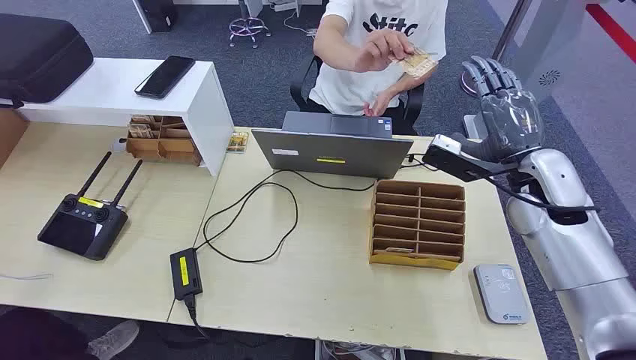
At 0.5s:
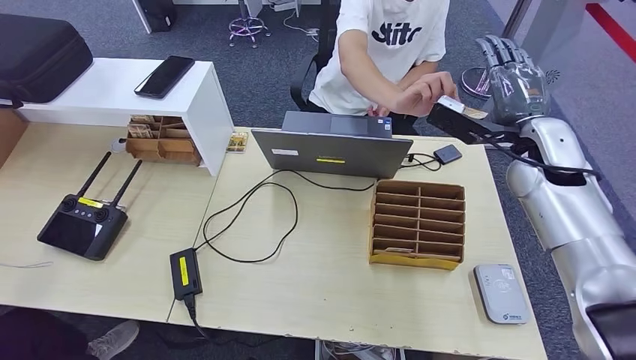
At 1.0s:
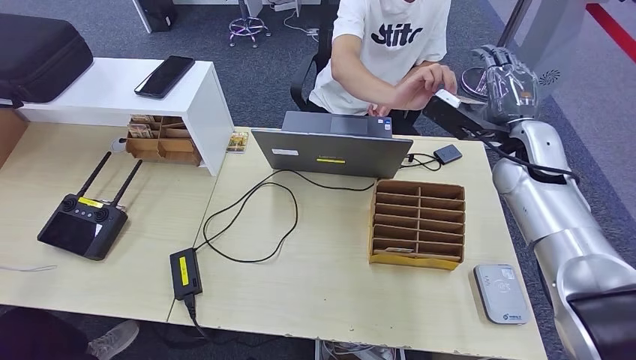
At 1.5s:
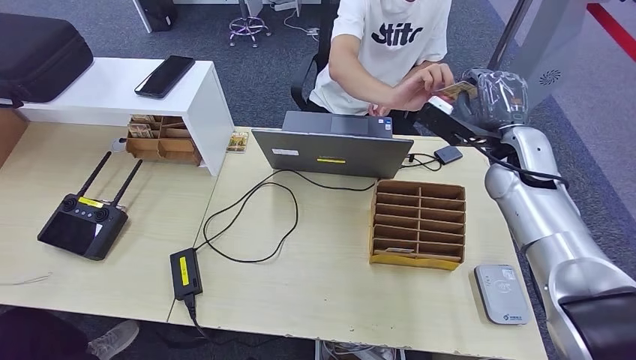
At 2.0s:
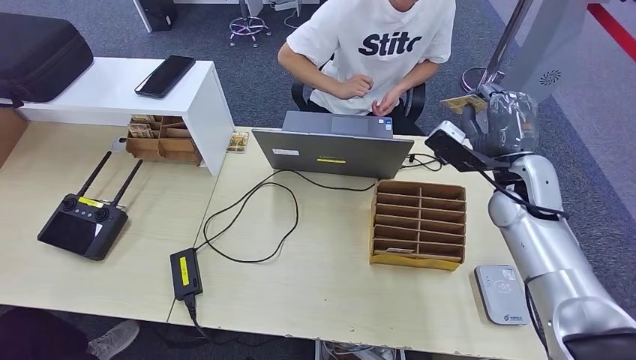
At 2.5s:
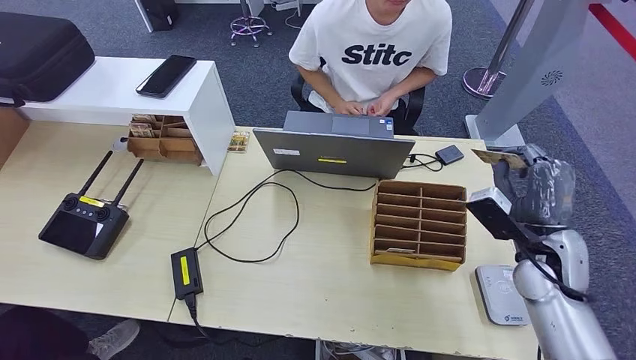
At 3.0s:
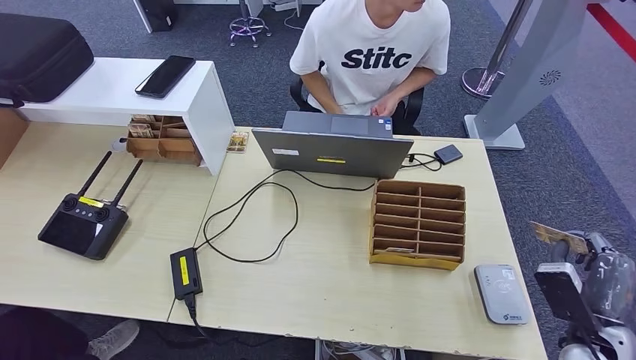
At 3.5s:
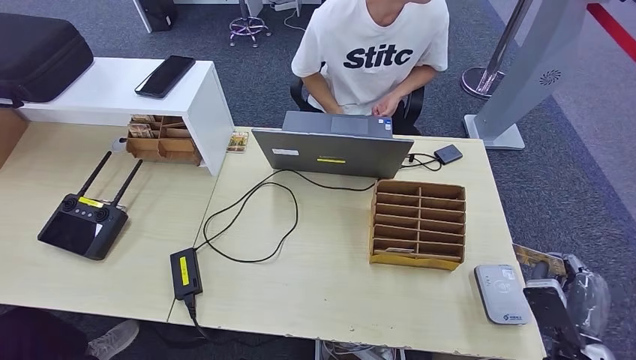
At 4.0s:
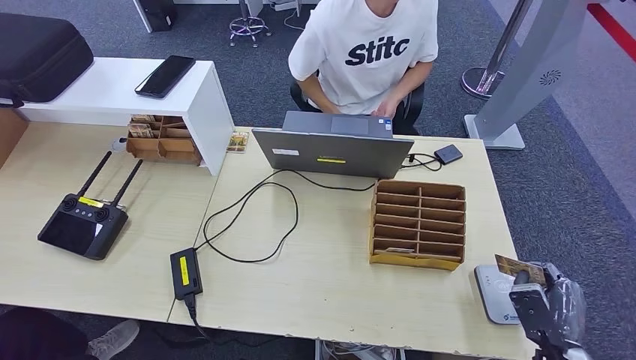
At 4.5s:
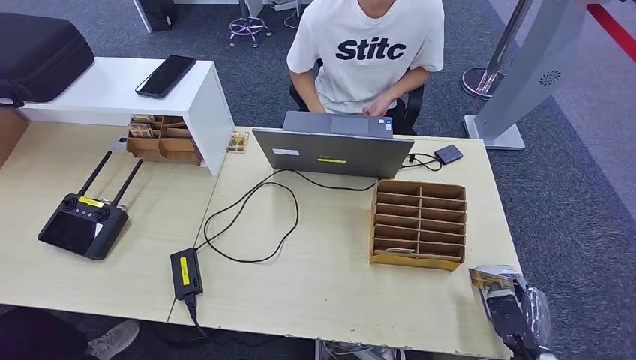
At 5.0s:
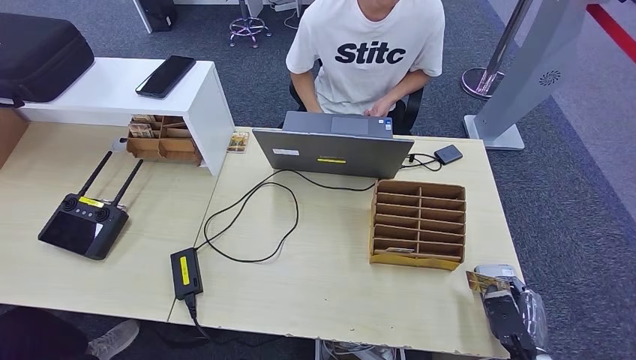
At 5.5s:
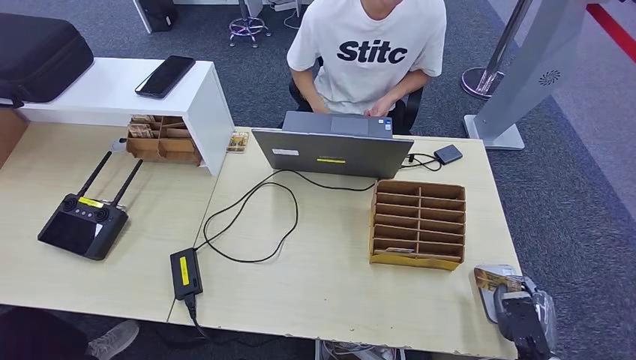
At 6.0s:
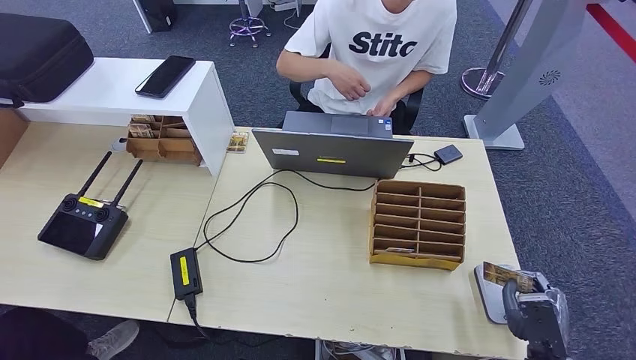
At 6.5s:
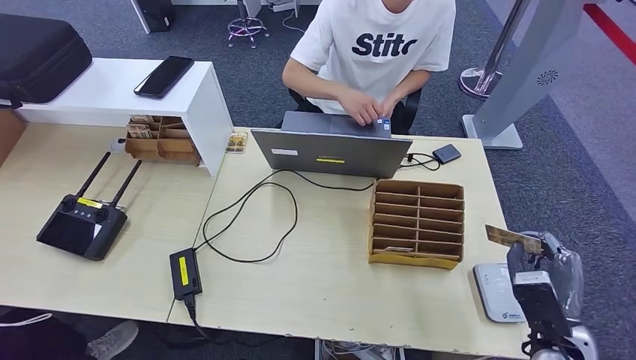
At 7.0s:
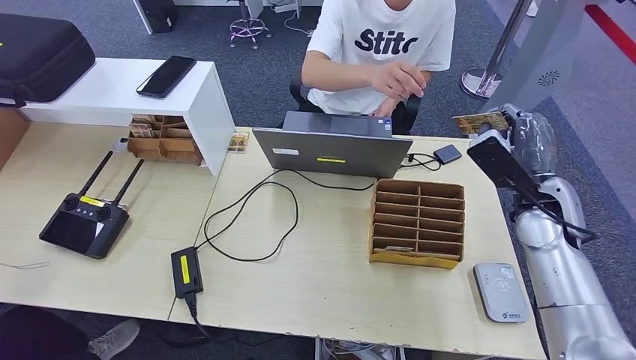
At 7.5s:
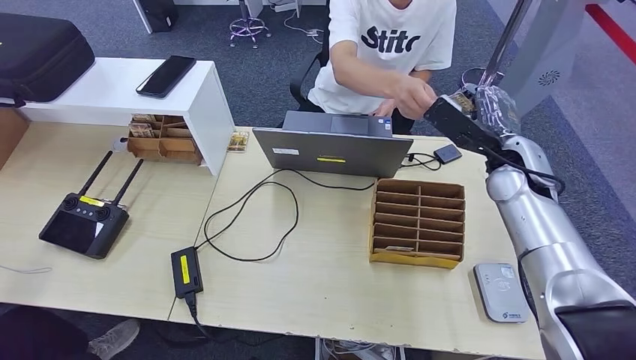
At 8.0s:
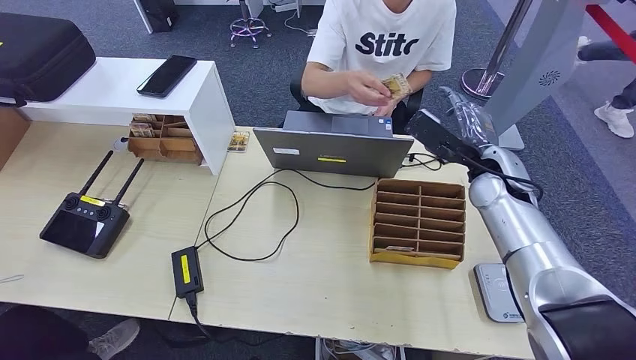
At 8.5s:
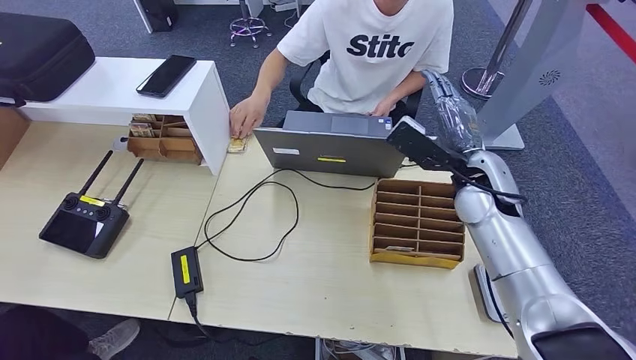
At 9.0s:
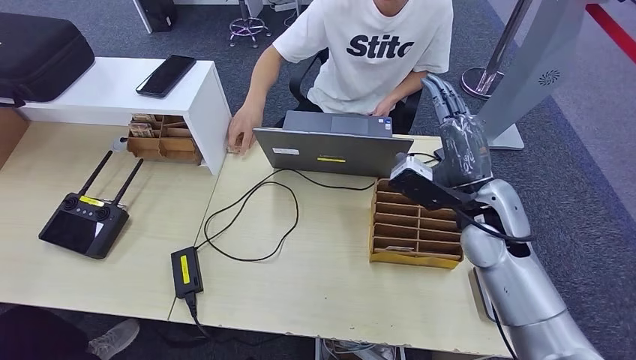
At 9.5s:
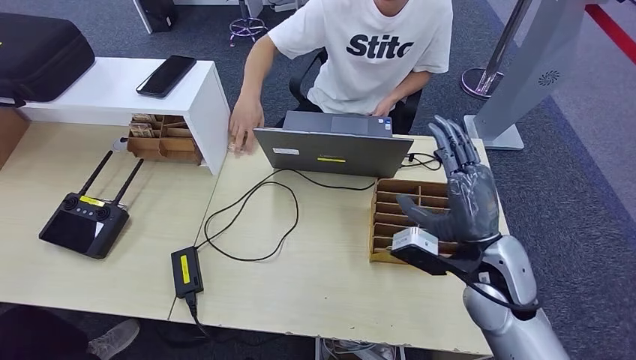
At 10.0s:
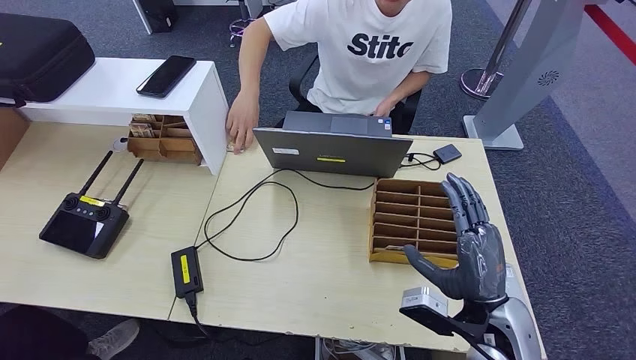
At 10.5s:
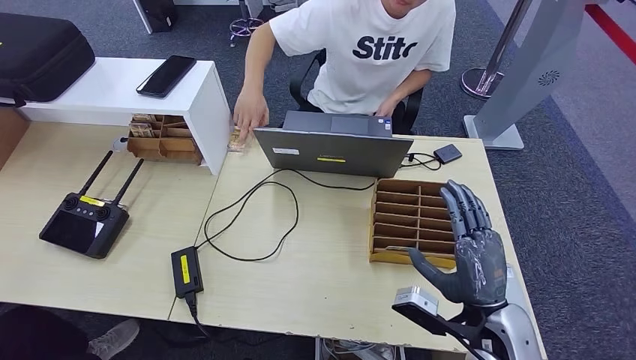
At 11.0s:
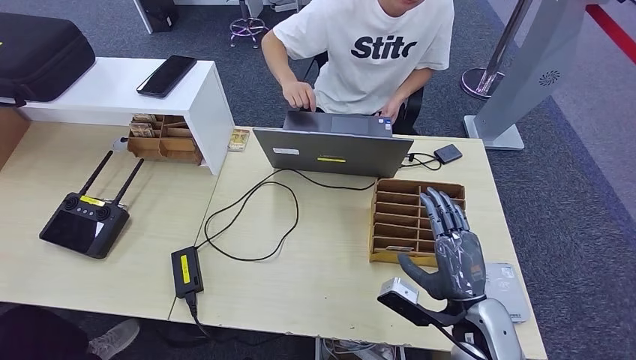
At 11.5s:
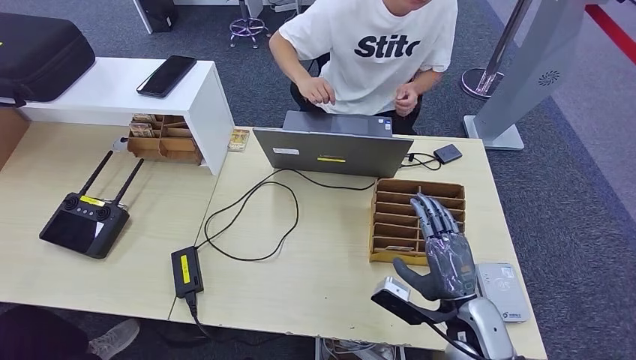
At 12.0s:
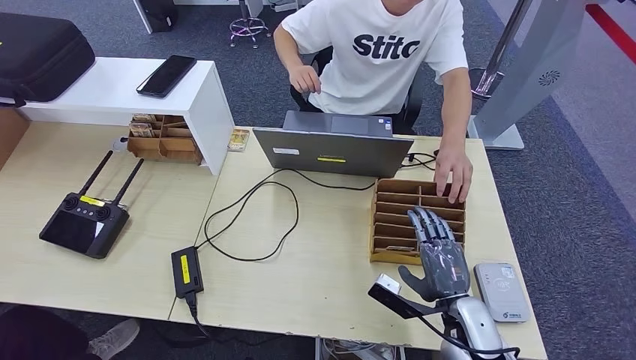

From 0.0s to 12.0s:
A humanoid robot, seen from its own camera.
Step, from 0.0s to 2.5s: Take the ID card from the person's hand.
Step, from 3.0s to 6.5s: Place the ID card on the card reader.
Step, from 7.0s to 9.5s: Hand the ID card to the person.
From 2.0s to 4.0s: The right hand heads backward and downward, covering roughly 30 cm.
From 4.0s to 6.0s: There are only small adjustments of the hands.
From 6.0s to 8.0s: The right hand is displaced forward and upward by some 35 cm.
From 8.0s to 10.0s: The right hand goes some 20 cm backward.
From 10.0s to 12.0s: The right hand shifts roughly 10 cm downward.

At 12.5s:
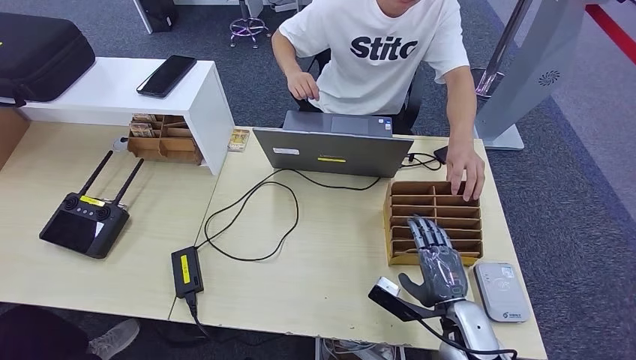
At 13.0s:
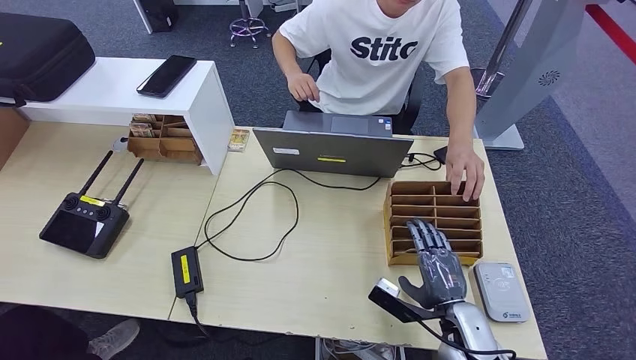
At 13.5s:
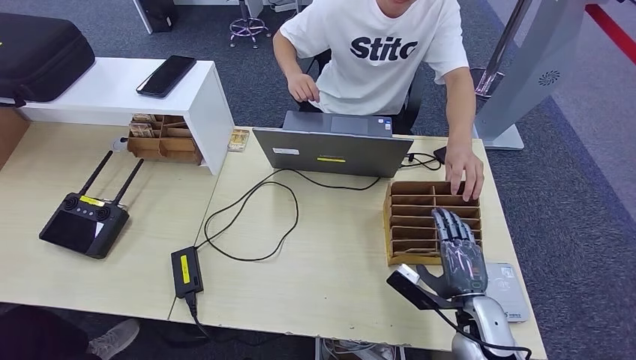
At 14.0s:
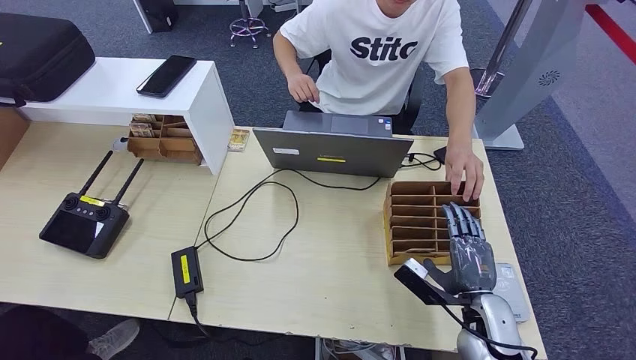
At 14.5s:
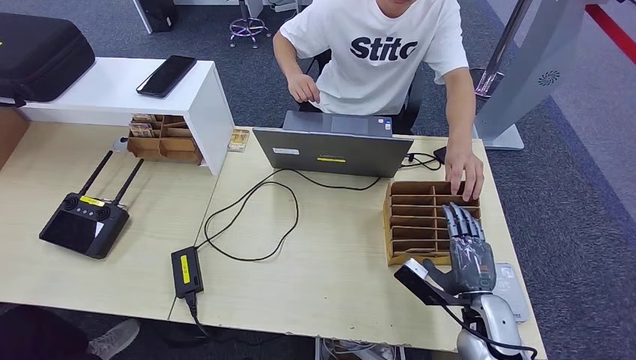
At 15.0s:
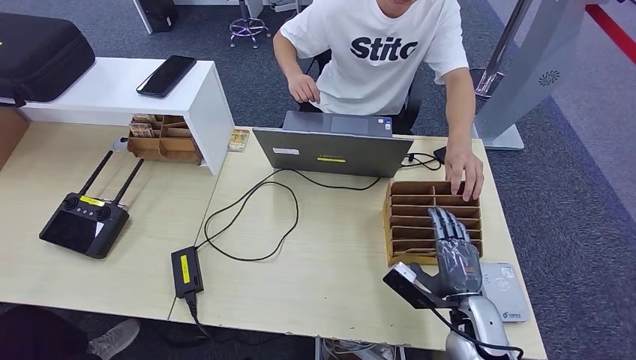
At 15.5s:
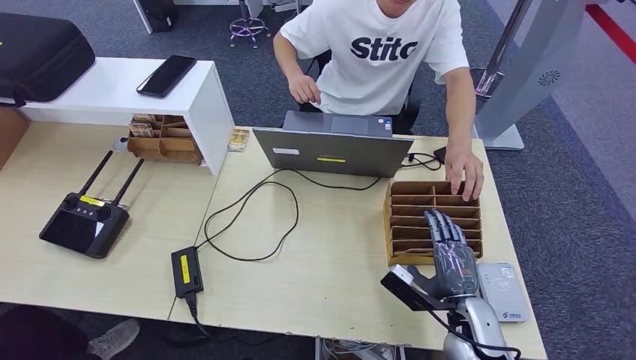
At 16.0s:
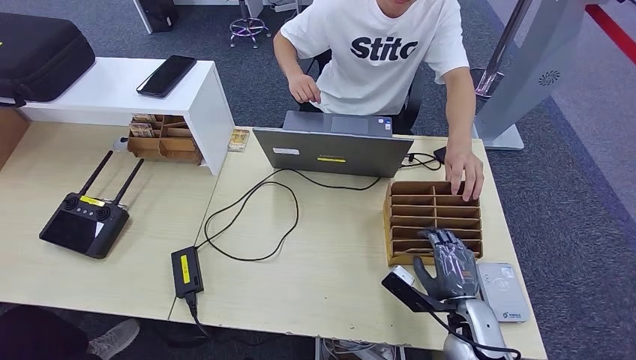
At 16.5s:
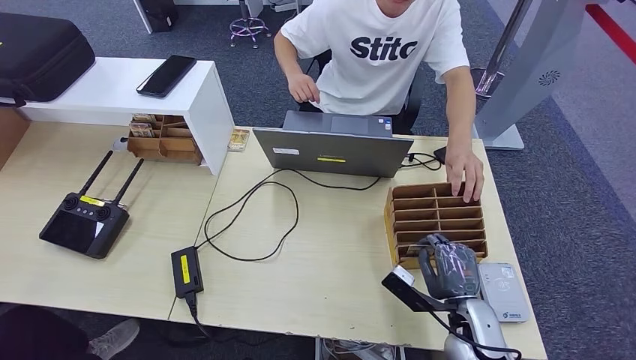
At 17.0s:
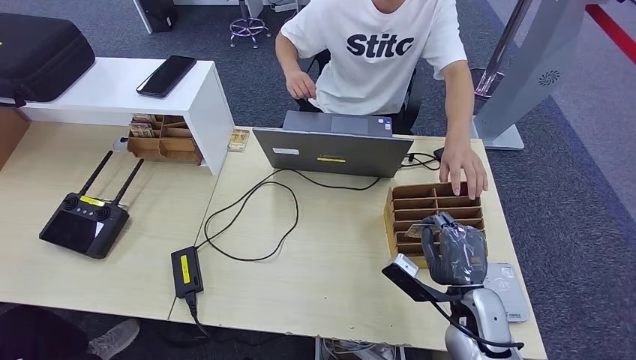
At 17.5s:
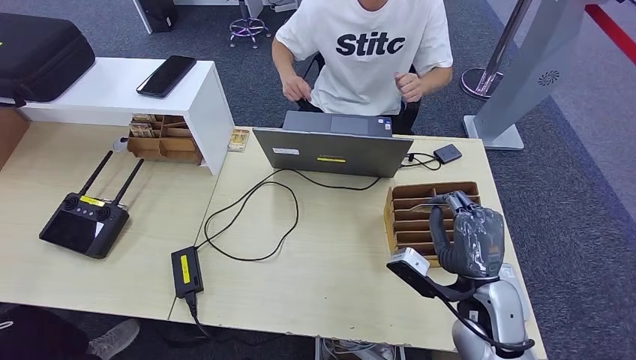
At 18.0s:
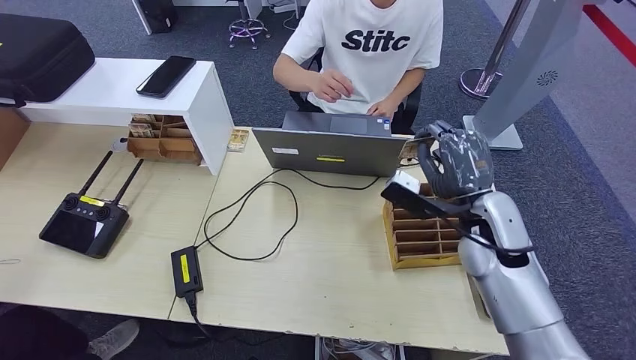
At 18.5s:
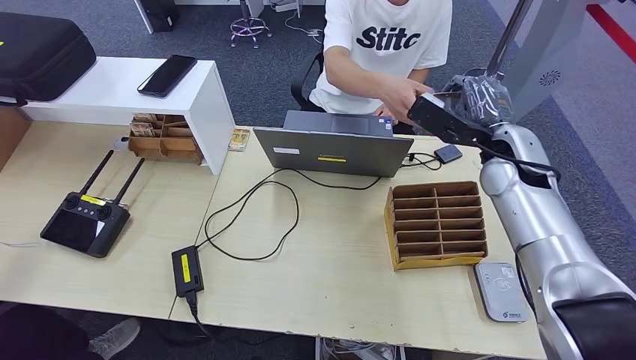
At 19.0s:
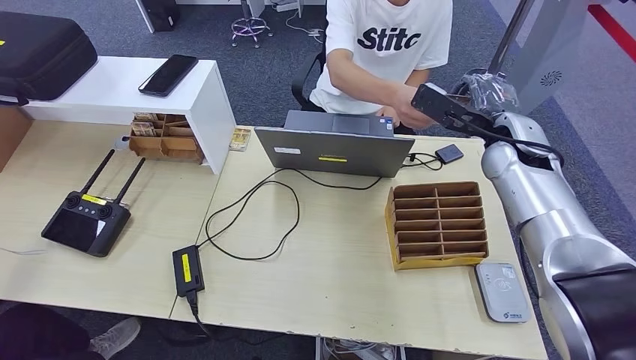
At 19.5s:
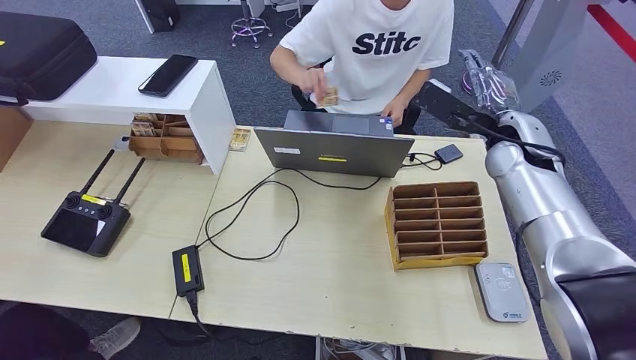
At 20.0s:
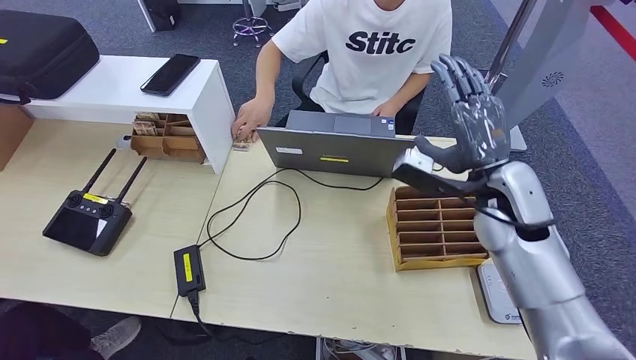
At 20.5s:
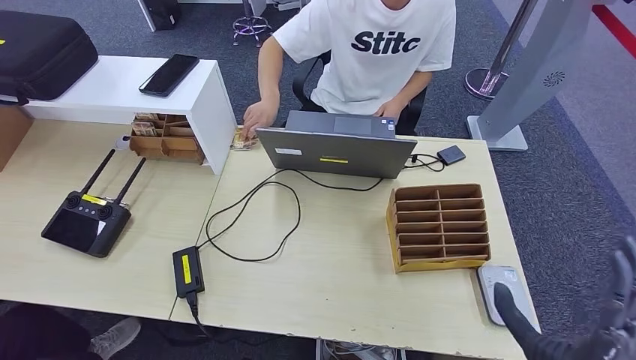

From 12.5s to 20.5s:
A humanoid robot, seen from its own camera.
Step, from 17.0s to 17.5s: Pick up the room key from the key card box.
Step, from 18.0s to 20.5s: Hand the room key to the person.
From 12.5s to 16.5s: The hands stay close to where they were, moving slightly.
